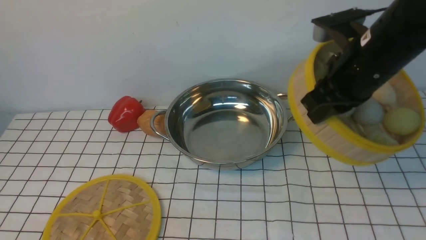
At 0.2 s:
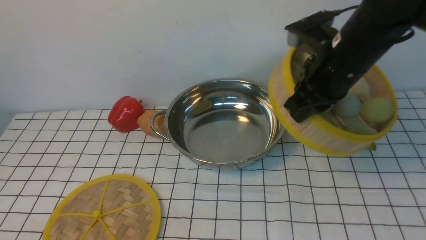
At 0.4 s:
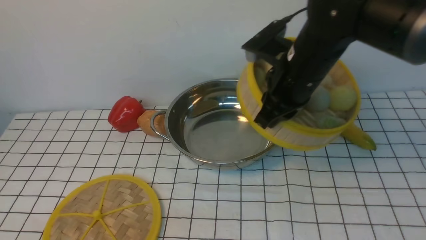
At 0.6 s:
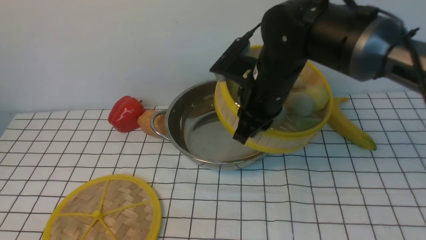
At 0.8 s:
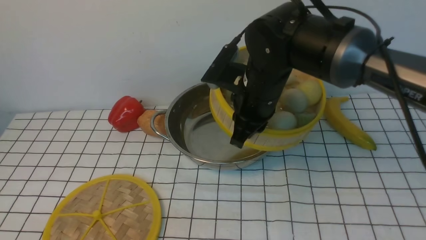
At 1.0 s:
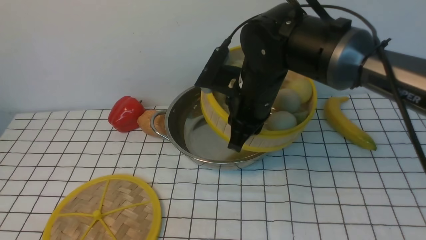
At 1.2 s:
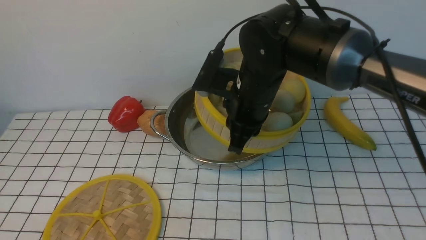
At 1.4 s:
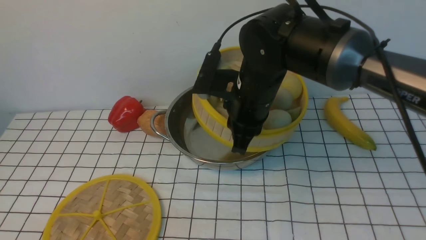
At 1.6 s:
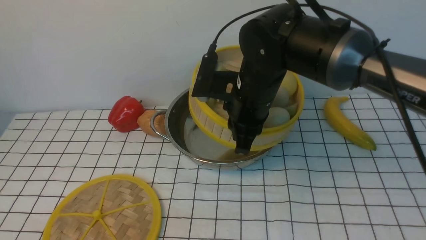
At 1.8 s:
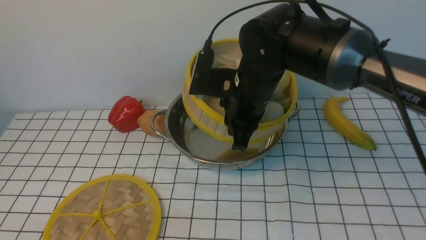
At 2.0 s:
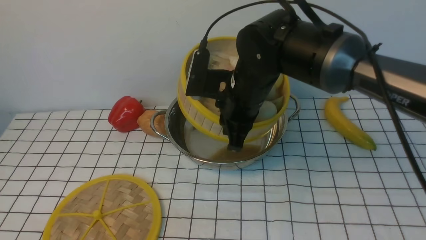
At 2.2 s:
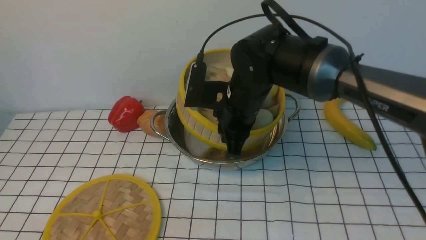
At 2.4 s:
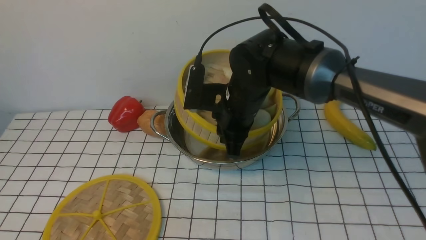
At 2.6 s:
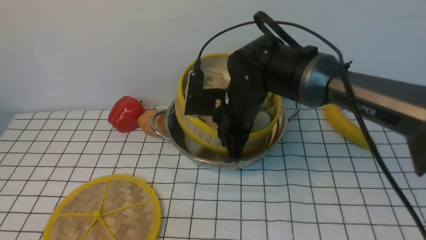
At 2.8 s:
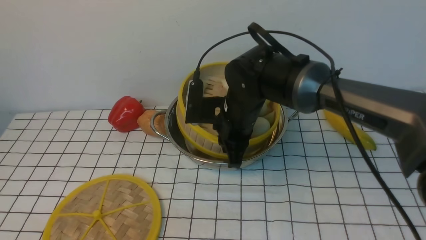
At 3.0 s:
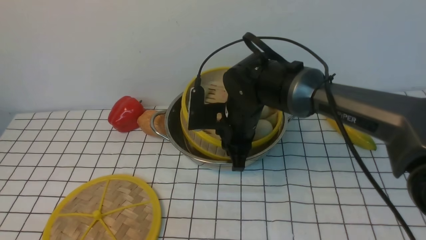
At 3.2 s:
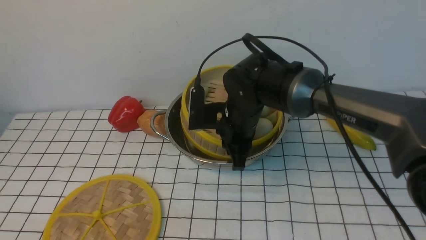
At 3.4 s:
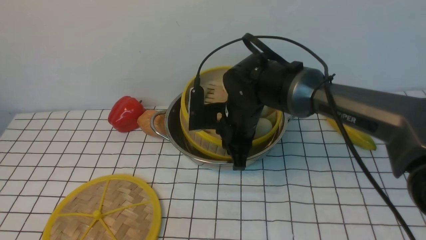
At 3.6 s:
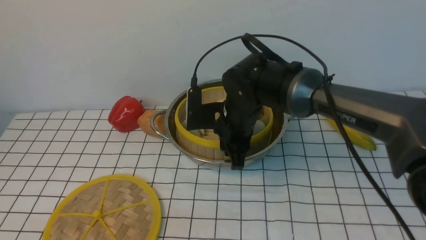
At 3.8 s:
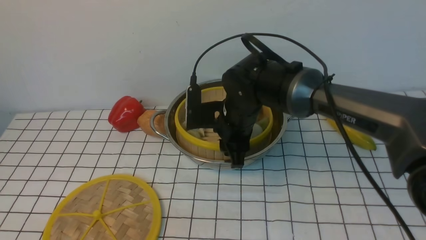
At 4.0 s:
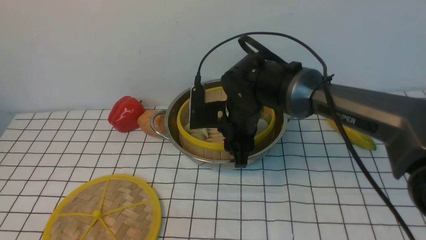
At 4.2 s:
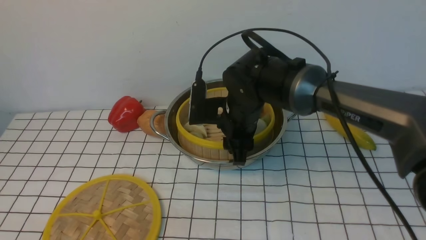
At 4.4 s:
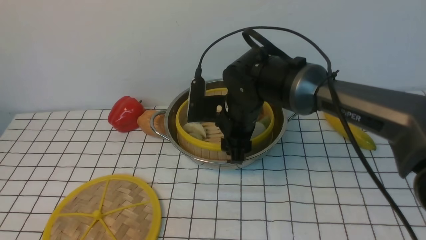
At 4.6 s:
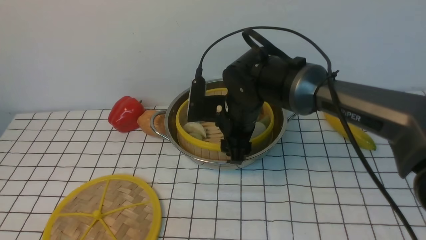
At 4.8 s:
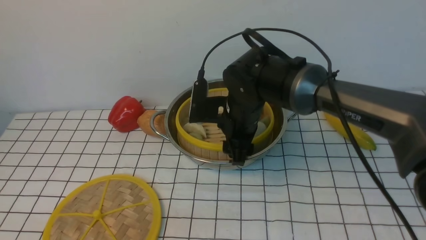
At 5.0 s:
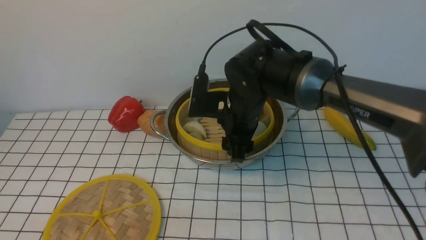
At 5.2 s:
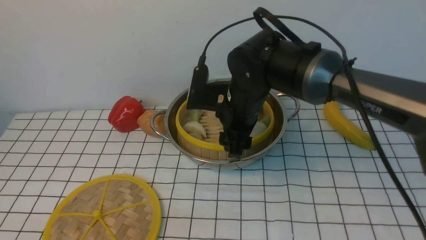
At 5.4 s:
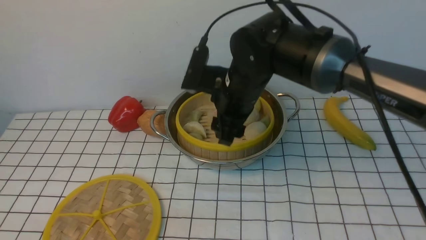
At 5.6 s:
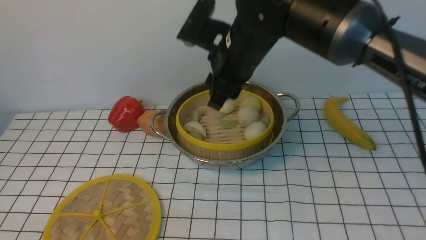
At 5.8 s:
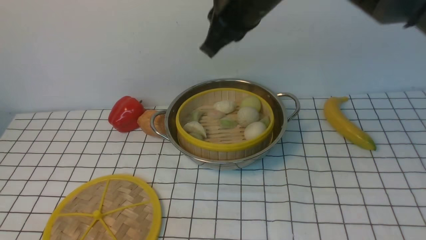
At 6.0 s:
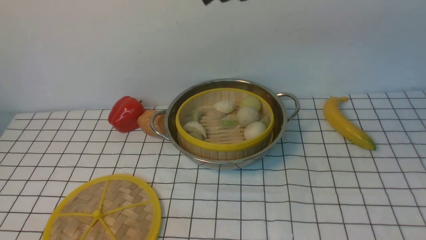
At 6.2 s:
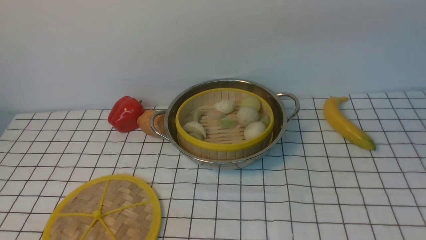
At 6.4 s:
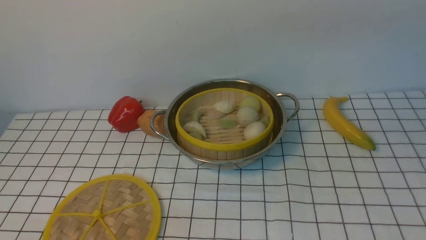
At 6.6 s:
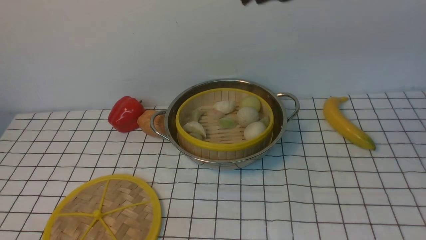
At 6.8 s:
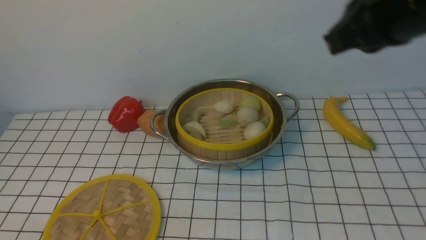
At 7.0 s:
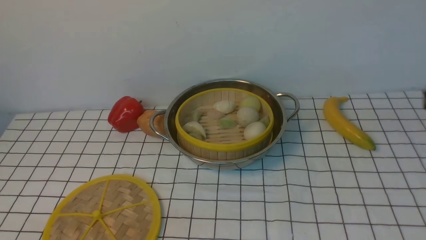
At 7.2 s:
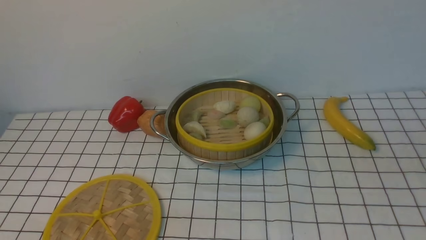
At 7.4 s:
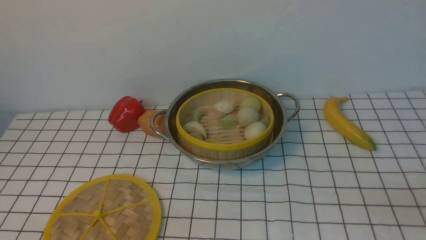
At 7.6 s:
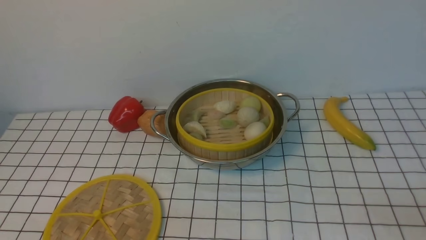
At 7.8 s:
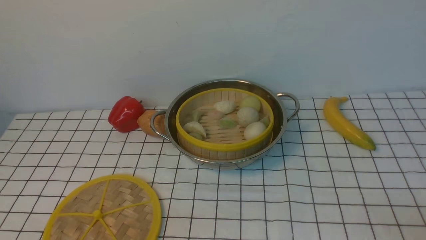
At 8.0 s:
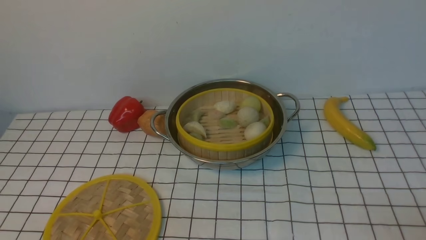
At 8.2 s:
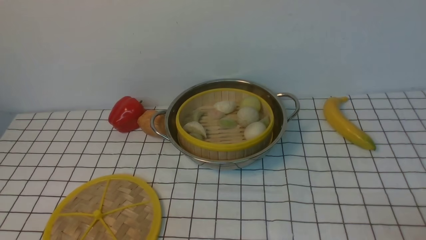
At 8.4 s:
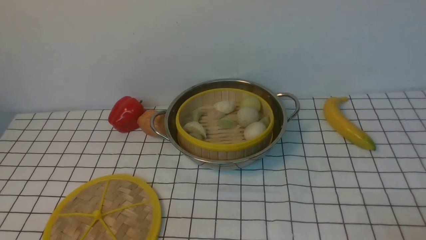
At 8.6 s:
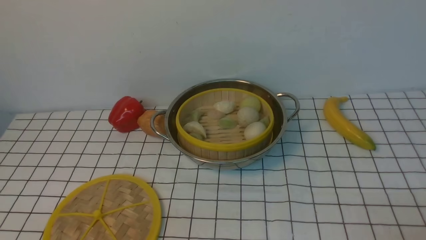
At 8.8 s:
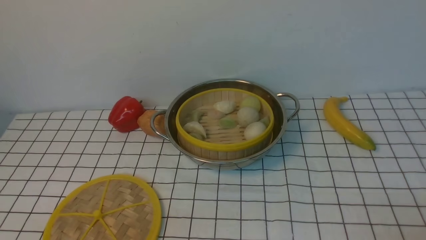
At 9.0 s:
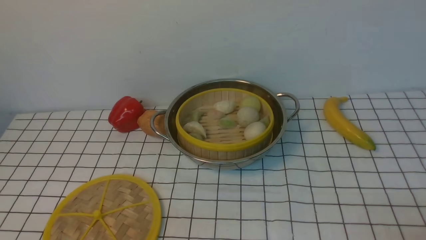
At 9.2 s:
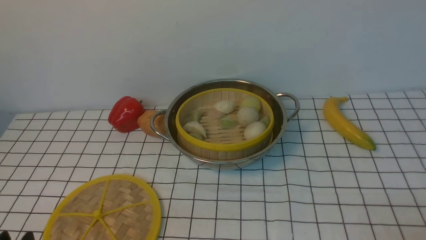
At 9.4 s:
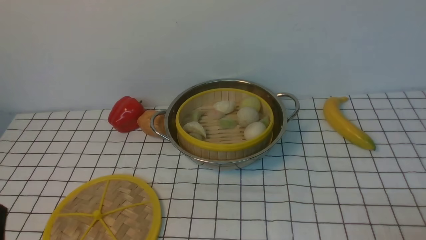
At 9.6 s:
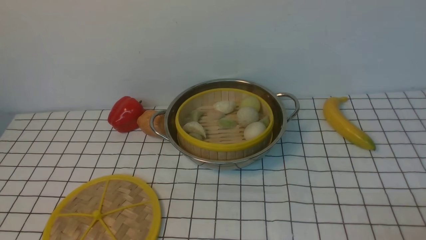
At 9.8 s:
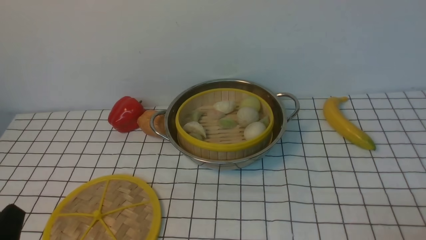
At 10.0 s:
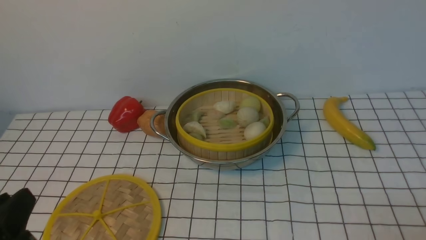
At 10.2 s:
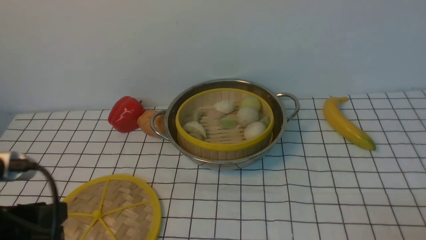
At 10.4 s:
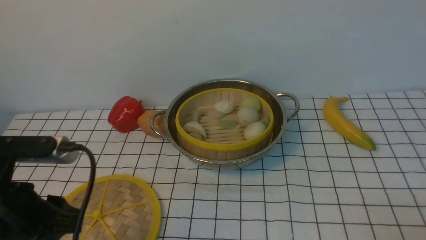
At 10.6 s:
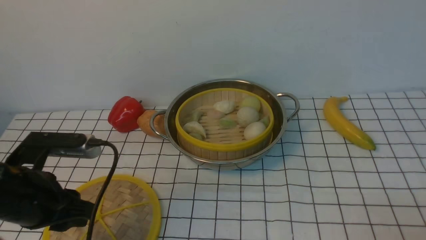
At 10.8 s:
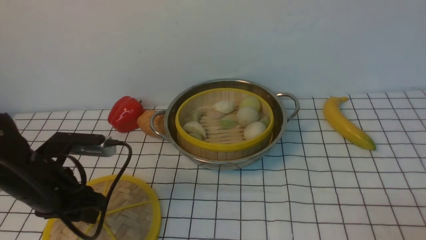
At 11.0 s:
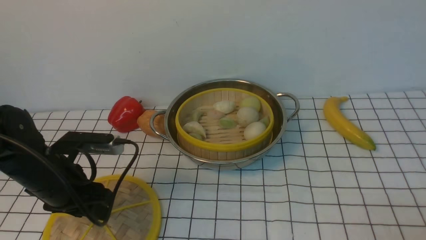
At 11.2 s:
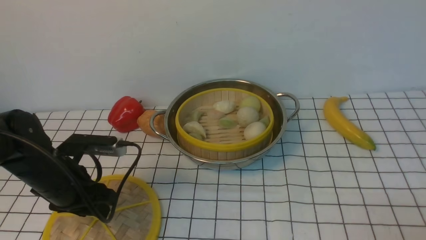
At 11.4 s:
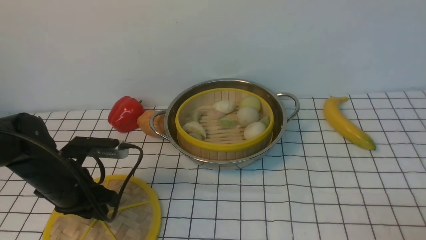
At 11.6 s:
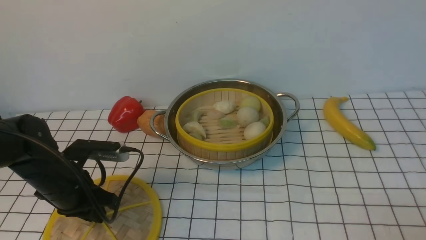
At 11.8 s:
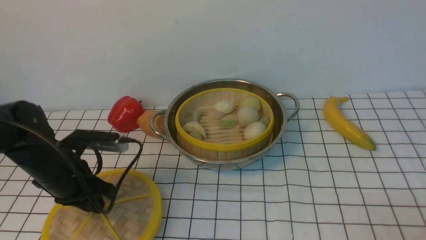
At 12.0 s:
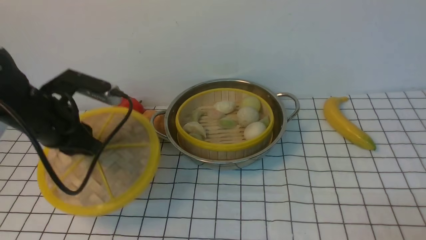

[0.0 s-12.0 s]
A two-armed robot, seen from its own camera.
Task of the whole recording: place the steamer in the pot on the white tablecloth, and put the lid on the steamer.
Step, 0.0 to 5.2 s: use the right arm to put the steamer into the iron steamer pot in the middle.
Step, 5.4 to 11.8 s: use the left arm to lift the lid of the steamer.
0.0 to 1.6 s: The right gripper moves to the left, about 15 cm.
1.6 to 3.0 s: The right gripper heads downward, covering roughly 5 cm.
3.0 to 4.4 s: The right gripper opens up.
4.4 to 6.0 s: The right gripper shifts about 25 cm upward, and closes its fingers.
9.0 to 10.4 s: The left gripper shifts approximately 15 cm forward and upward.
10.4 to 12.0 s: The left gripper heads forward, covering some 15 cm.

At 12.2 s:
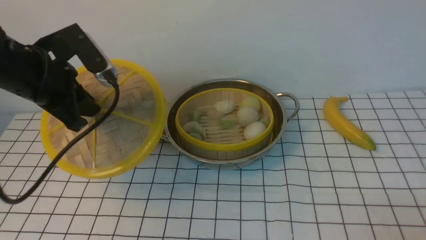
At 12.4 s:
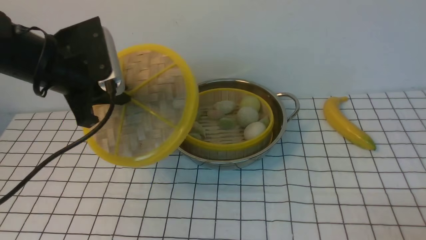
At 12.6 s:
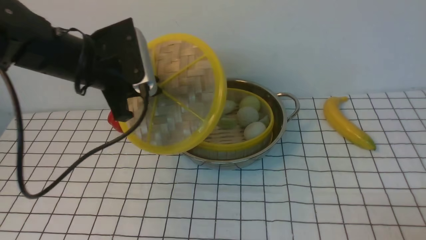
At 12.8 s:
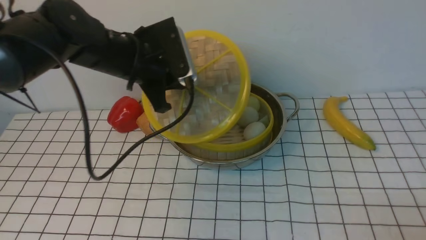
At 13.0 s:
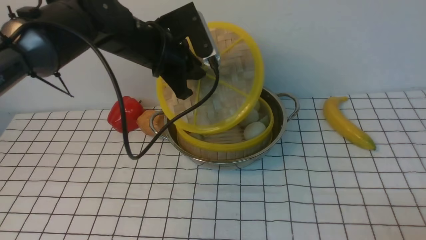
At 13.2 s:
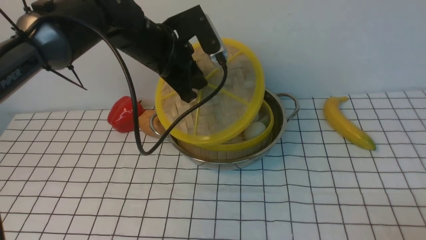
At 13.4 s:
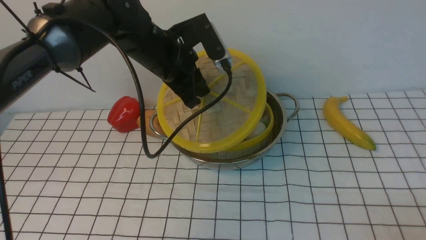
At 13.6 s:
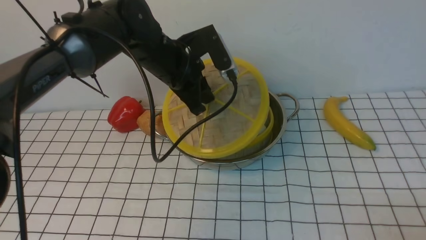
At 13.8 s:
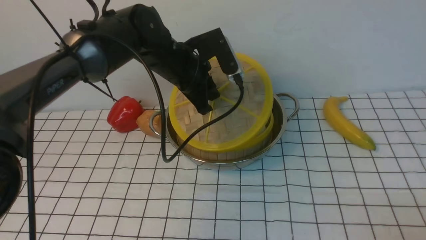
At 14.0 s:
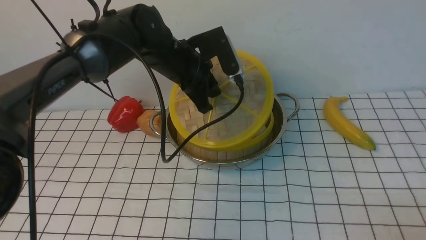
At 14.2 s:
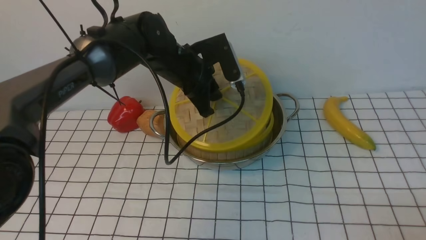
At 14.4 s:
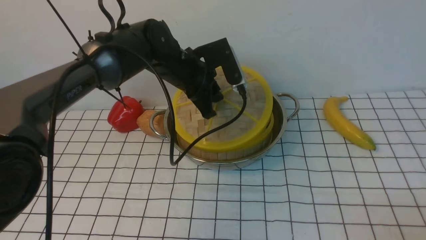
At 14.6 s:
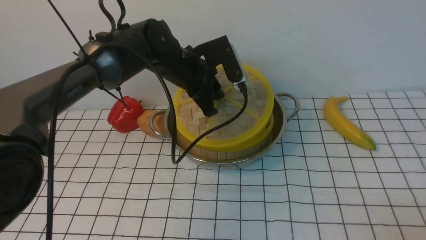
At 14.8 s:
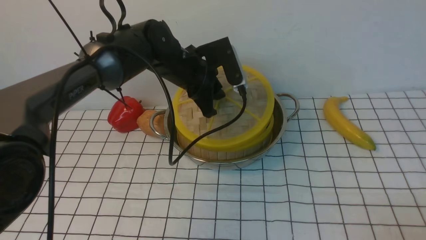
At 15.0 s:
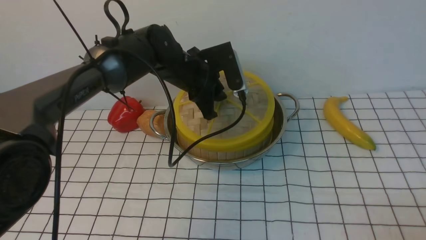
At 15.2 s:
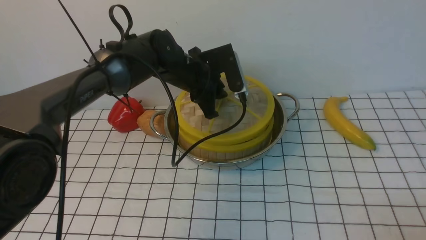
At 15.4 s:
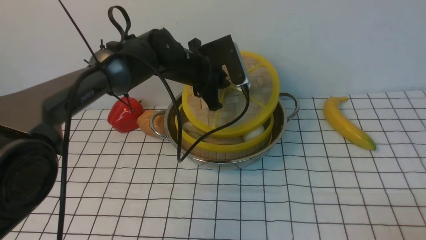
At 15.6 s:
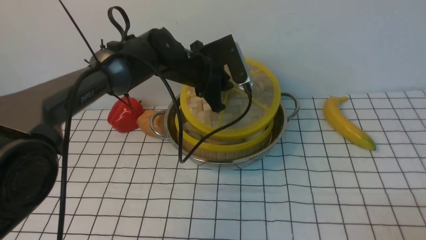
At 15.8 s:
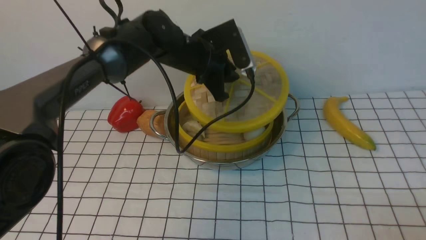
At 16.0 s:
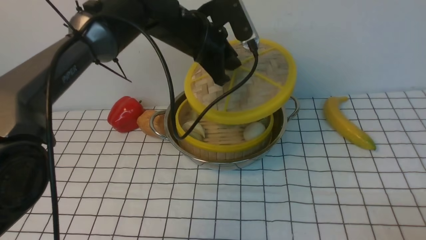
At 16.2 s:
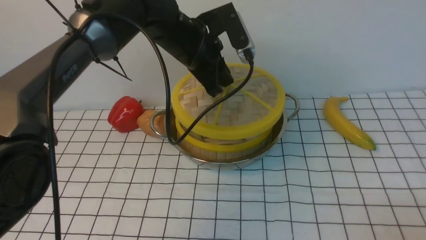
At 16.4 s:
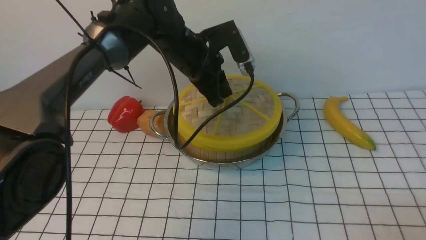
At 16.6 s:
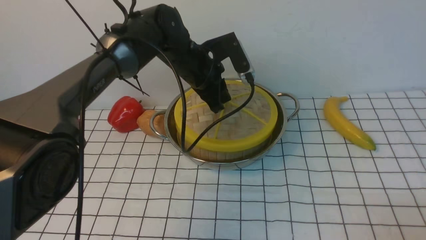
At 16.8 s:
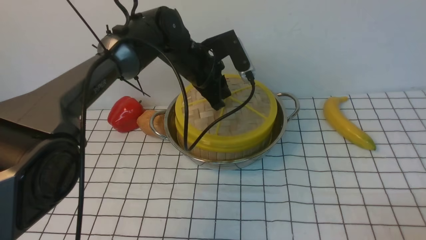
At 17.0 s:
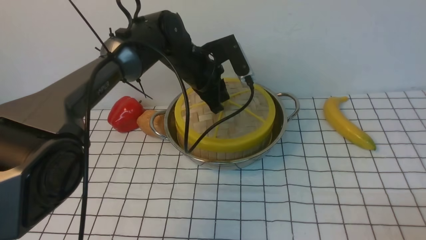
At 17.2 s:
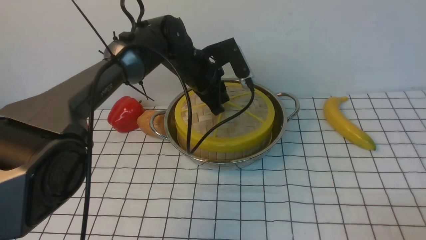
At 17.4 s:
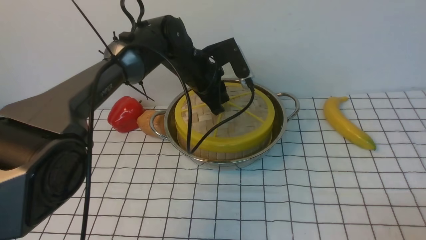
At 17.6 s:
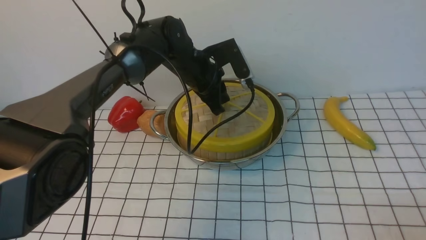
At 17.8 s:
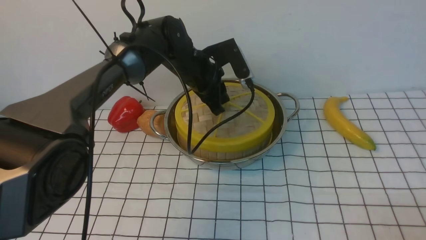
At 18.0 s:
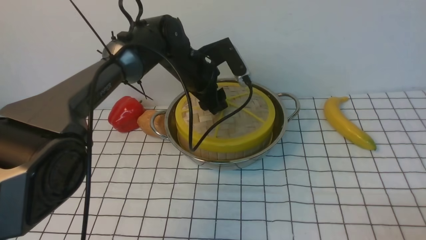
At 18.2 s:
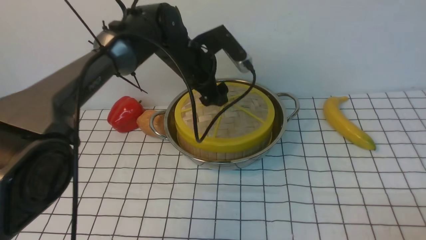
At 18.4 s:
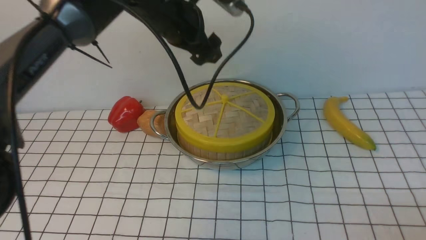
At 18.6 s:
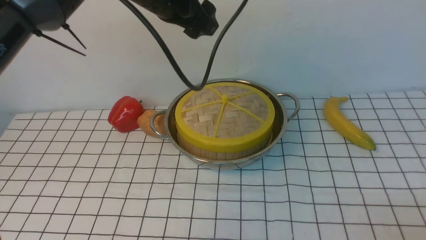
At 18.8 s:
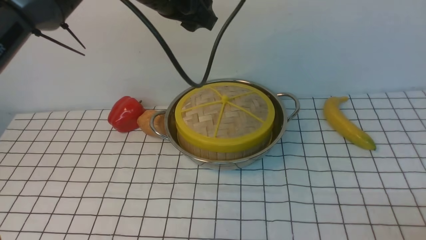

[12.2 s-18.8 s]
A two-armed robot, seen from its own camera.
Task of the whole recording: place the steamer in the pot on the white tablecloth, and put the lid on the steamer.
Step, 12.2 to 18.2 s: use the left arm to place the steamer lid on the steamer.
12.2 to 13.8 s: The left gripper moves to the right and forward, about 20 cm.
13.8 to 15.4 s: The left gripper ends up about 5 cm from where it was.
17.2 to 18.8 s: The left gripper moves upward, roughly 15 cm, and opens up.
